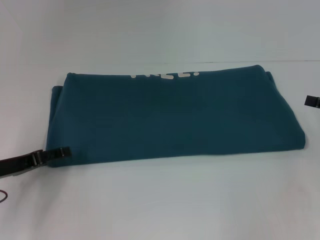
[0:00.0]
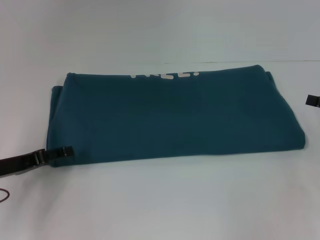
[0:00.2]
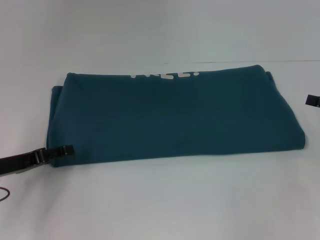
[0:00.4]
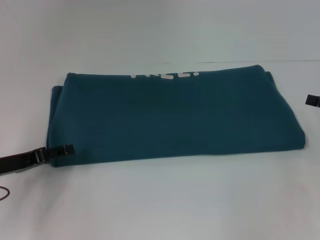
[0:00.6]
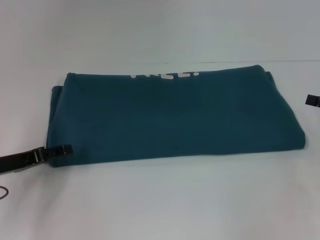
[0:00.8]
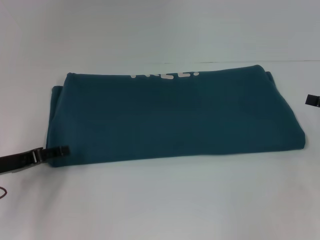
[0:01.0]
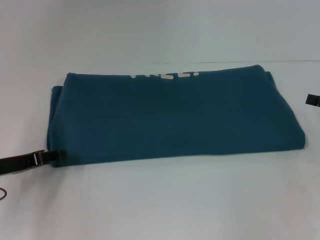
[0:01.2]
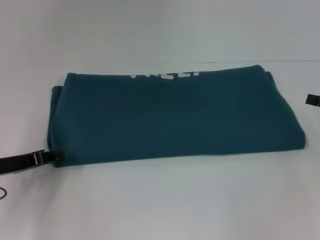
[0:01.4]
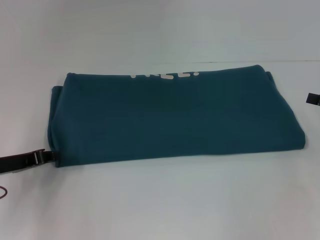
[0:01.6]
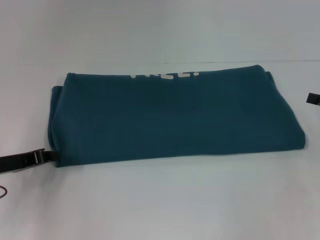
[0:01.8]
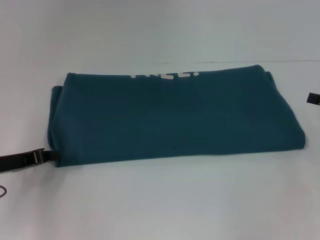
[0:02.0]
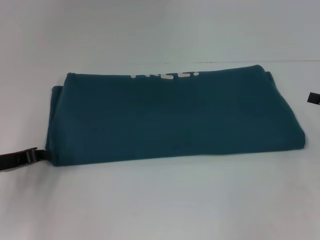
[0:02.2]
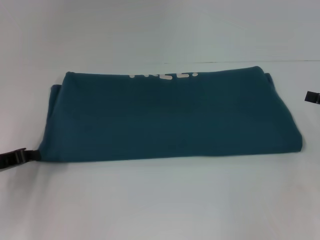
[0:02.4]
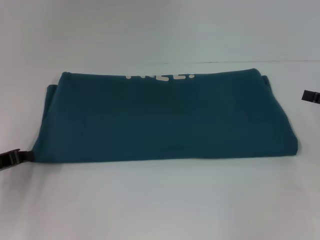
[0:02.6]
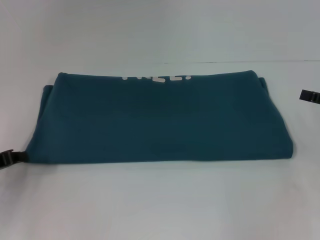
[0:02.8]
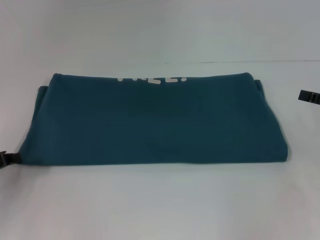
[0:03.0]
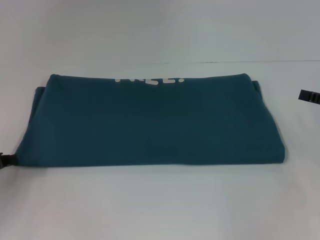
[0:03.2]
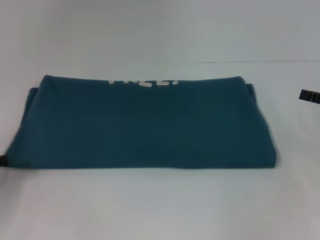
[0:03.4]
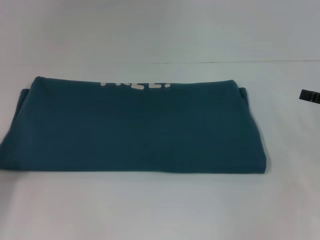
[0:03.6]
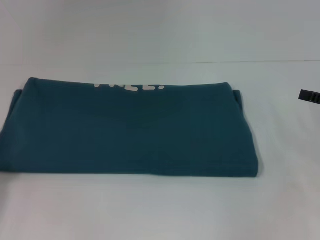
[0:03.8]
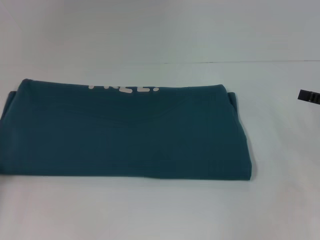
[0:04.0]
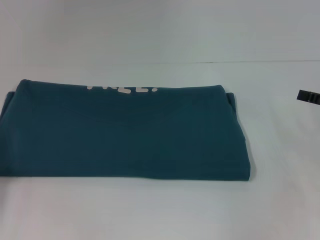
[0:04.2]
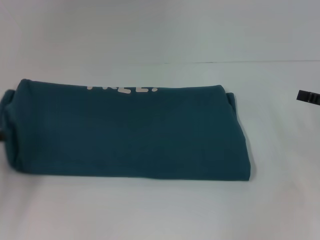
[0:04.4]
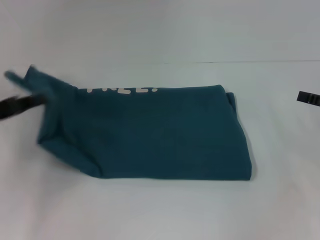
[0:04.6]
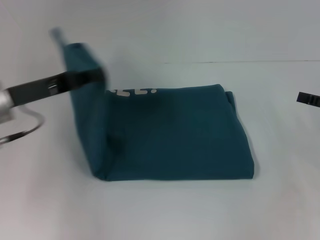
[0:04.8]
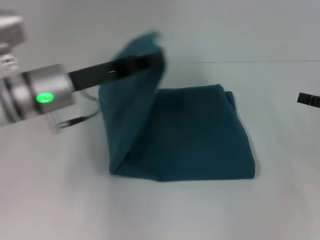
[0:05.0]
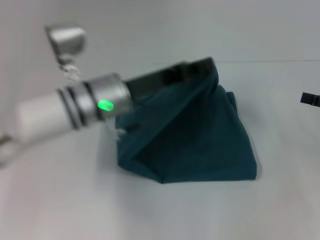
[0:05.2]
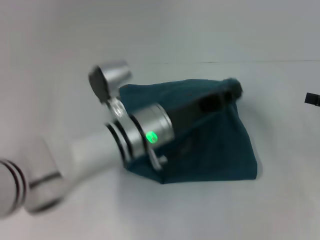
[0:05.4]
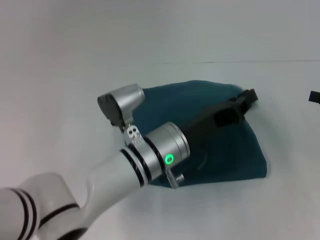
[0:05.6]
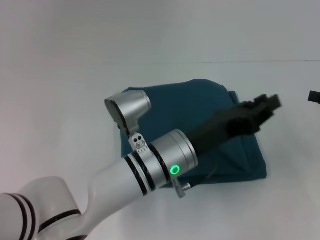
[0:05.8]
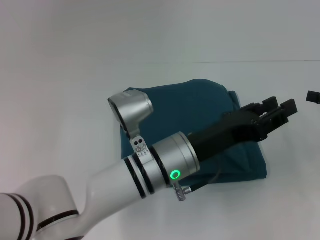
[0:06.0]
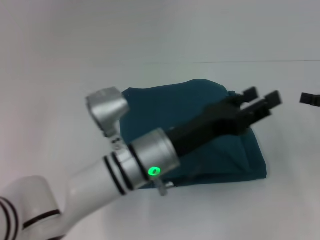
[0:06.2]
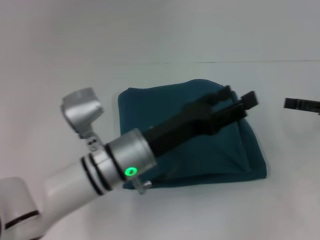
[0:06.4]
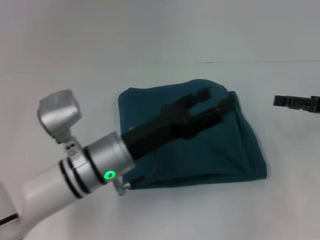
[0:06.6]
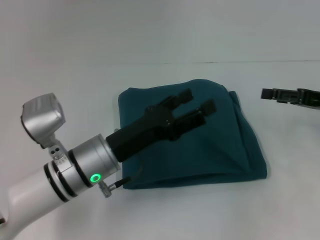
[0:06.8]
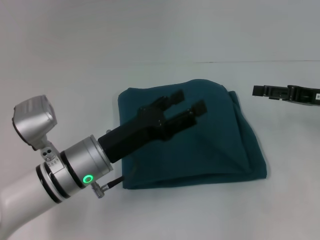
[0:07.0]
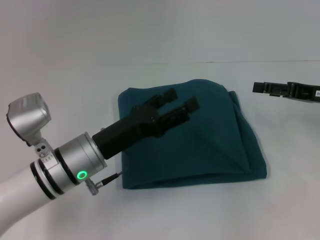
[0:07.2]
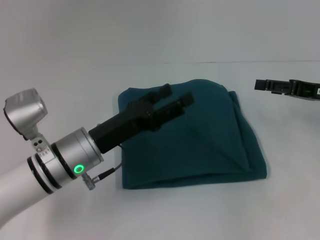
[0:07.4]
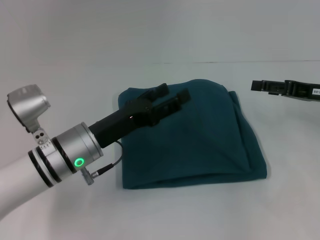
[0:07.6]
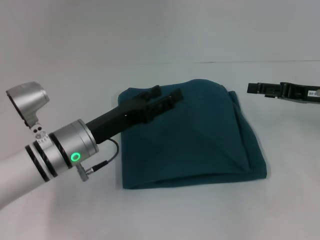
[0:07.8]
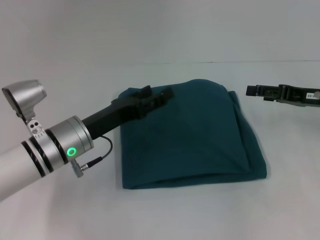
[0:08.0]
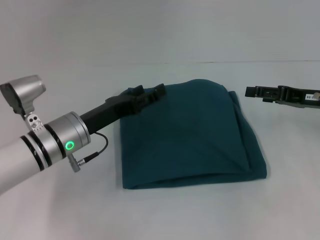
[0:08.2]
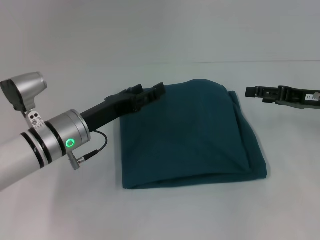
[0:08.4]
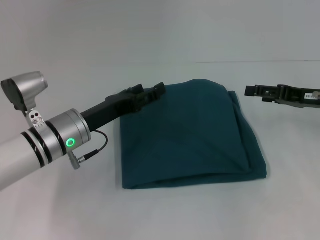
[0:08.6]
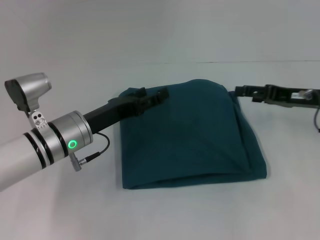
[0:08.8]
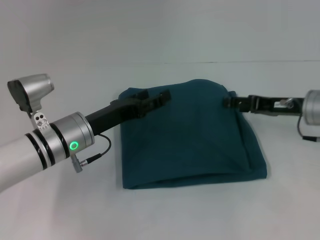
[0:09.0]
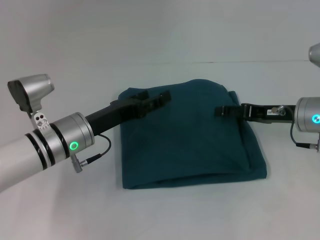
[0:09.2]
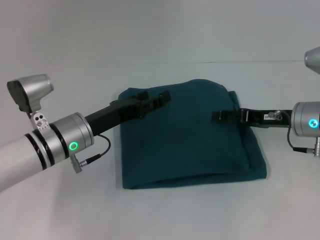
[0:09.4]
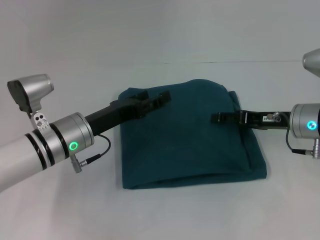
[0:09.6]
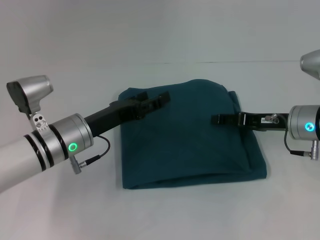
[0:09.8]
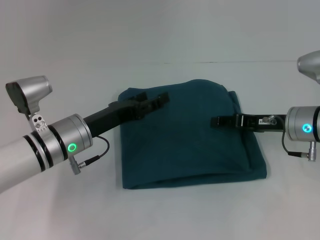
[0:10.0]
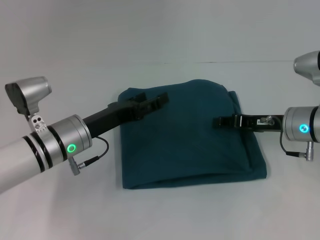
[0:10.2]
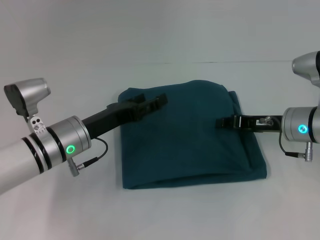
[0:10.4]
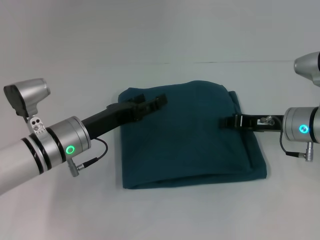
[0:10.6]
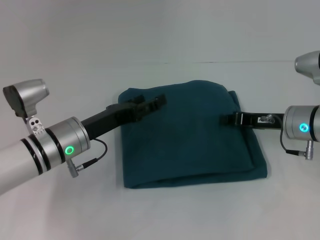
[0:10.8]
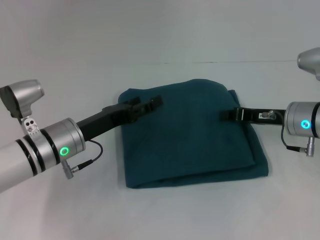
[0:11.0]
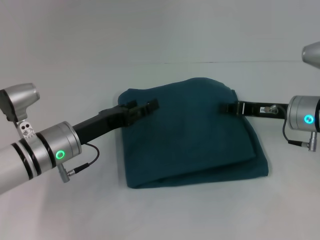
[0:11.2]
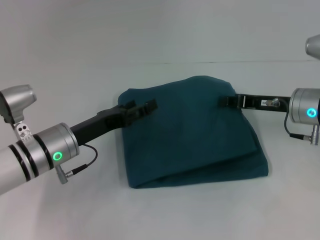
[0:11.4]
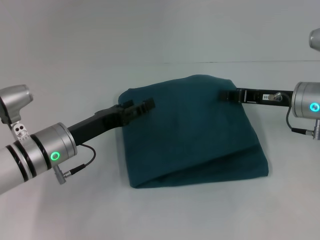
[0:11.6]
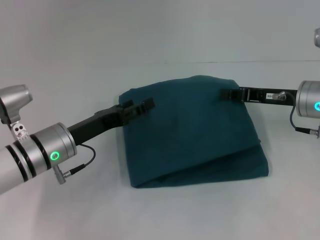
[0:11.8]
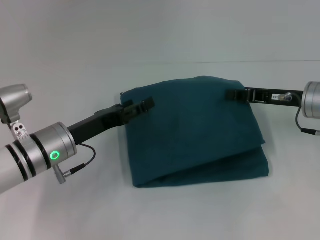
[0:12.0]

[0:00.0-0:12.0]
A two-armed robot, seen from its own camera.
Step, 0:00.0 to 0:05.8: Fold the clothes to the left.
0:00.0 to 0:01.6: The left gripper closes up.
0:01.6 to 0:03.0: The left gripper changes place by approximately 5 cm.
0:03.0 to 0:04.4: The grippers move only a little.
0:04.4 to 0:06.0: The left gripper shifts some 35 cm to the right.
0:06.0 to 0:07.6: The left gripper shifts about 15 cm to the left, and opens. Meanwhile the right gripper goes some 10 cm to the left.
0:07.6 to 0:09.0: The right gripper moves to the left, some 5 cm.
0:09.0 to 0:10.4: The right gripper closes.
0:10.4 to 0:12.0: There are only small adjustments of the grippers.

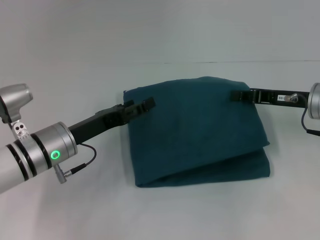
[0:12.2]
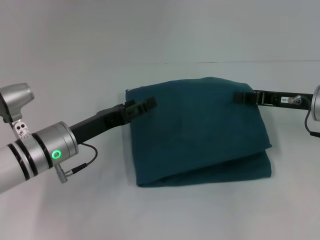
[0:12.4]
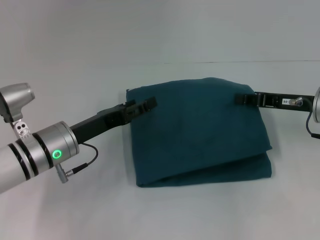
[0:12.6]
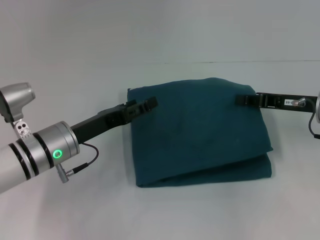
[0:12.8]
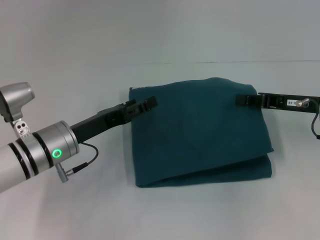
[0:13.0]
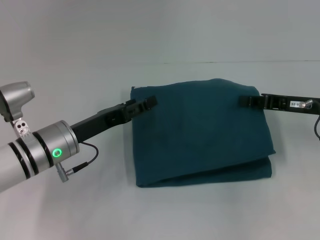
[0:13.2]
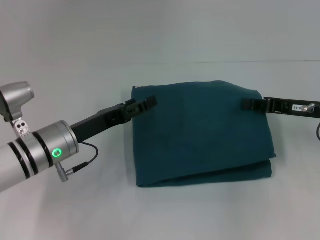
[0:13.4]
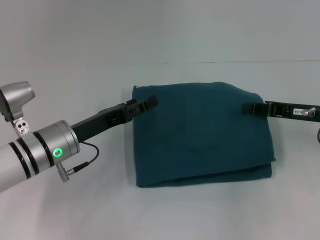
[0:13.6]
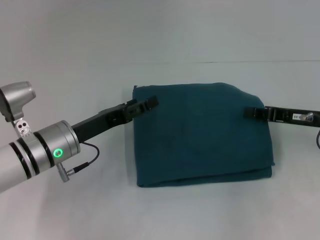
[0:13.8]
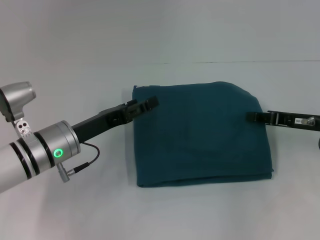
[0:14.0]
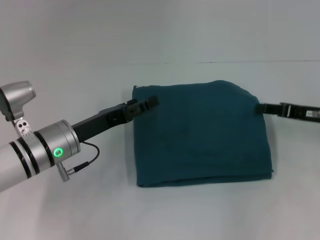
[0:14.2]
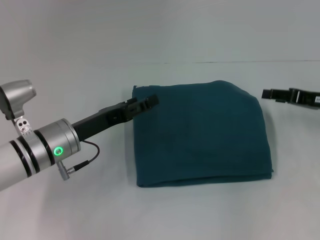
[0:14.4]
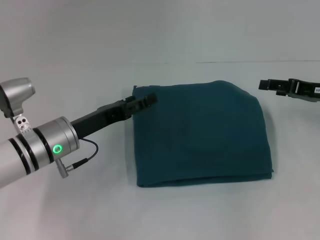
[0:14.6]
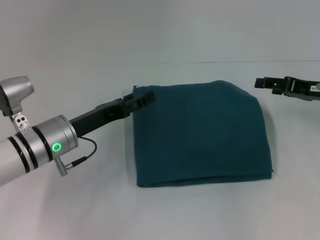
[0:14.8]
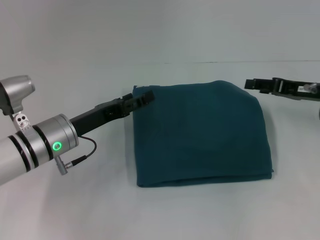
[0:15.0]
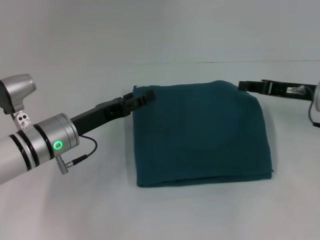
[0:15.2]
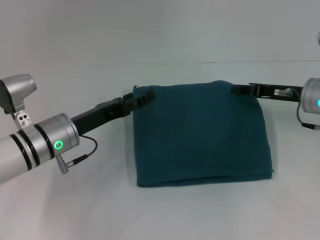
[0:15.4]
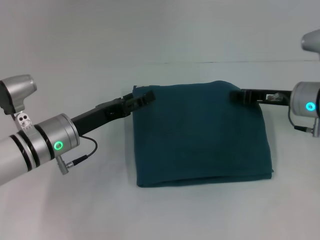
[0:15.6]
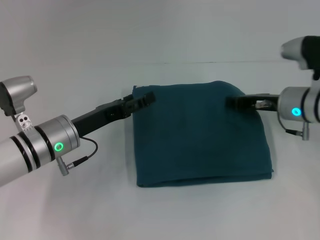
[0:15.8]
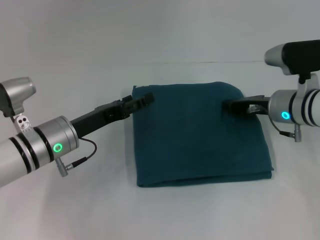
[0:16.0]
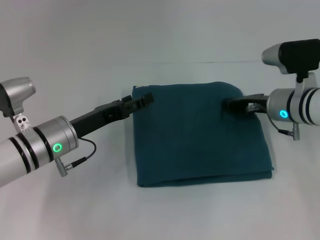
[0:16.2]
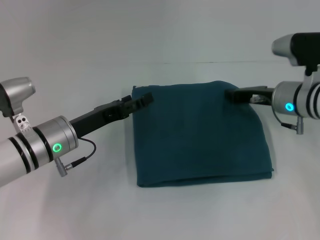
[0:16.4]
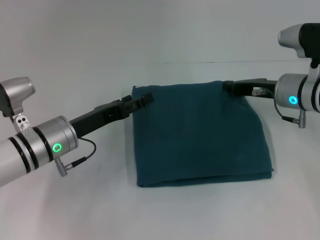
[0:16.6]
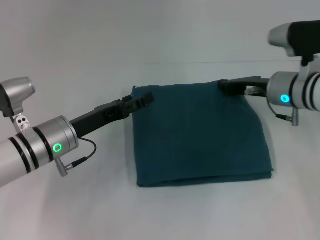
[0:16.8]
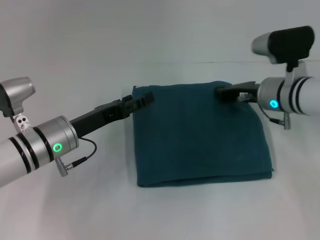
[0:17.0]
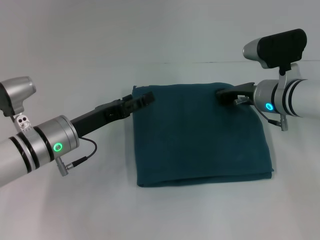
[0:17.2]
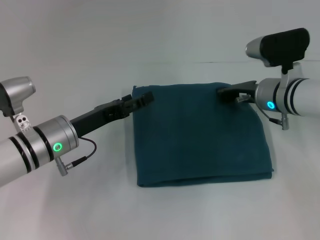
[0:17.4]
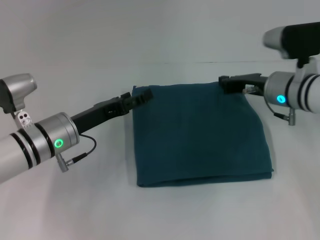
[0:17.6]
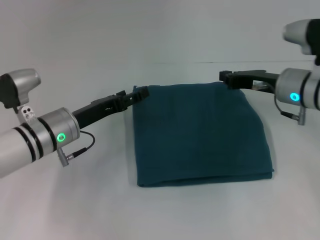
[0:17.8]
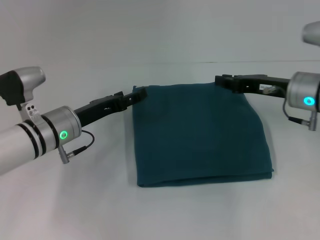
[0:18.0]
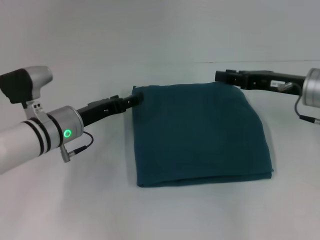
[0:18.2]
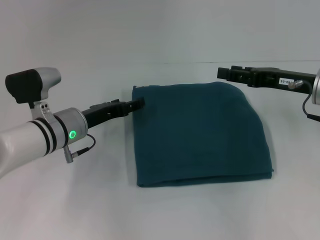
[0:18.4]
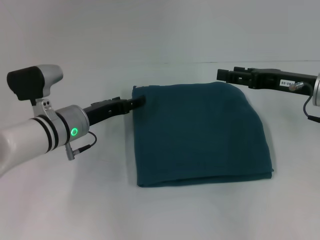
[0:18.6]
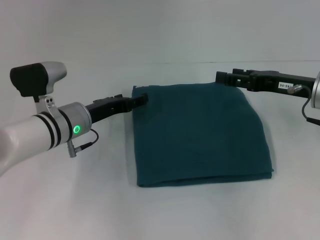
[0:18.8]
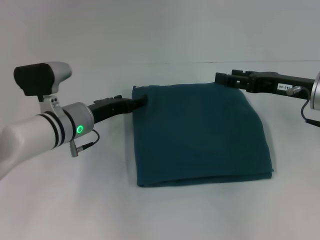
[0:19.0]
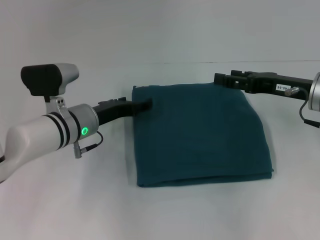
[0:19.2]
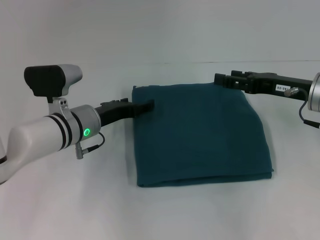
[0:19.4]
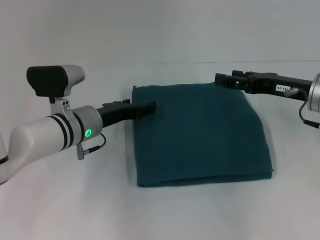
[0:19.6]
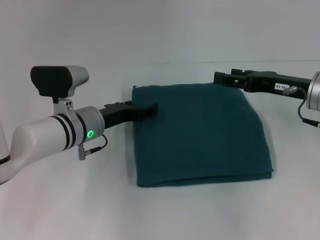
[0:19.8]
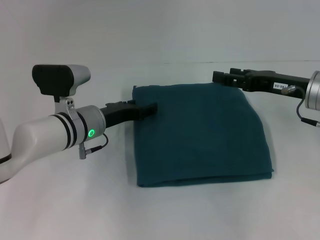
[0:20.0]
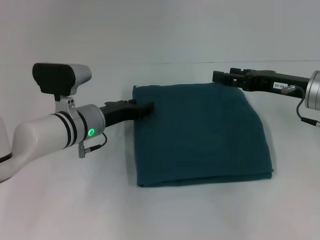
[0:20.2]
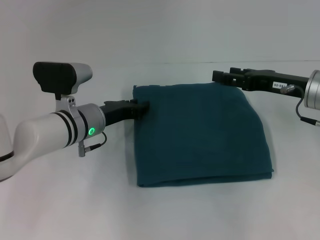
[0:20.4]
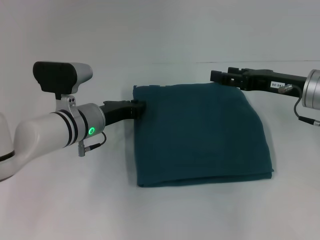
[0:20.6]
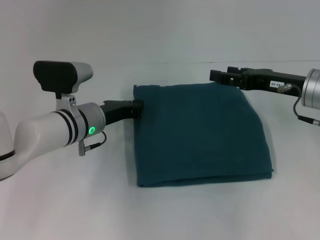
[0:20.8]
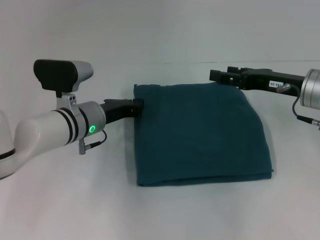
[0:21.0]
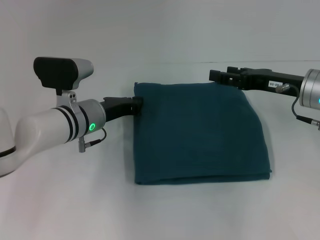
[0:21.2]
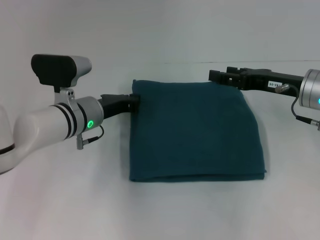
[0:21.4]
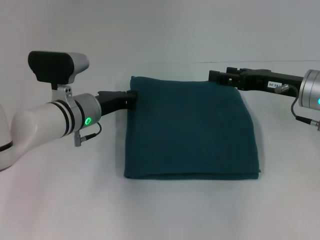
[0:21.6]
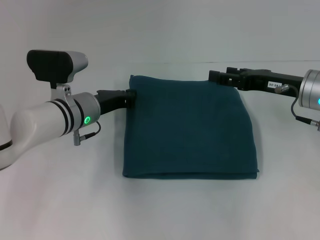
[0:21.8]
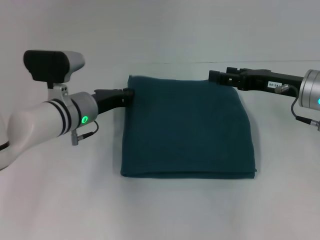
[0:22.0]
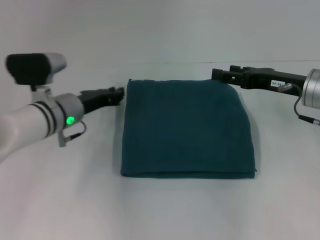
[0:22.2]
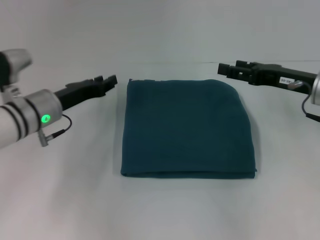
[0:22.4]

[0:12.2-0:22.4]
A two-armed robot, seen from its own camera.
0:12.2 to 0:13.6: The grippers make only small movements.
0:13.6 to 0:15.2: The right gripper opens its fingers.
0:15.2 to 0:16.6: The right gripper goes approximately 5 cm to the left, and closes.
0:16.6 to 0:18.0: The grippers make only small movements.
0:18.0 to 0:19.4: The right gripper opens up.
0:19.4 to 0:21.0: The left gripper closes up.
0:21.0 to 0:22.4: The left gripper is displaced to the left by some 5 cm.
